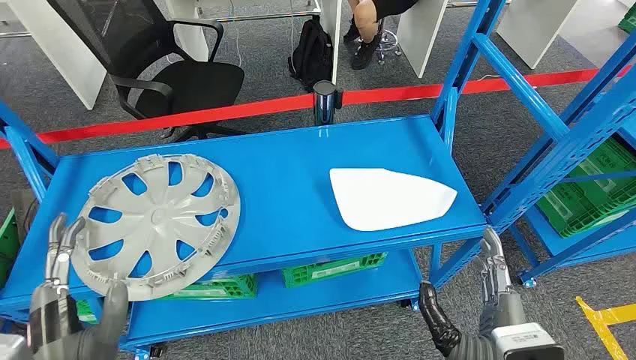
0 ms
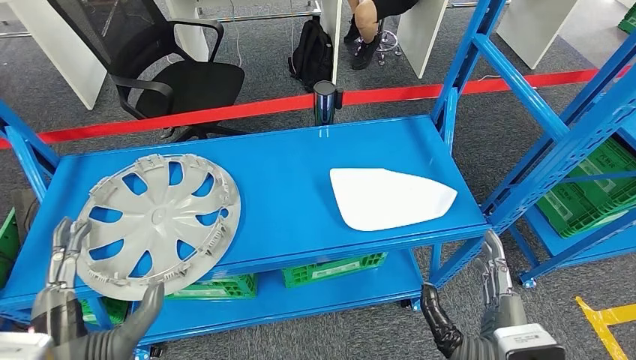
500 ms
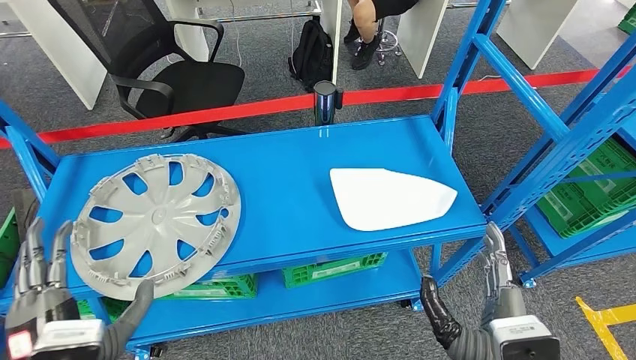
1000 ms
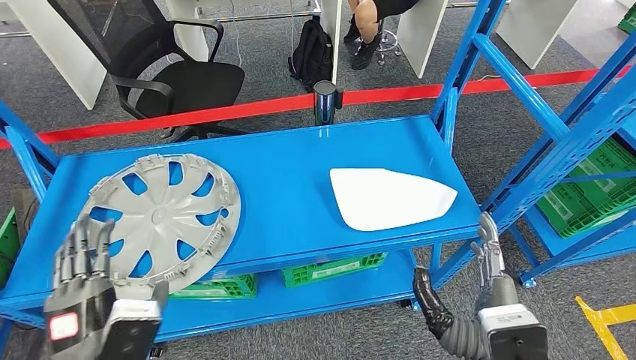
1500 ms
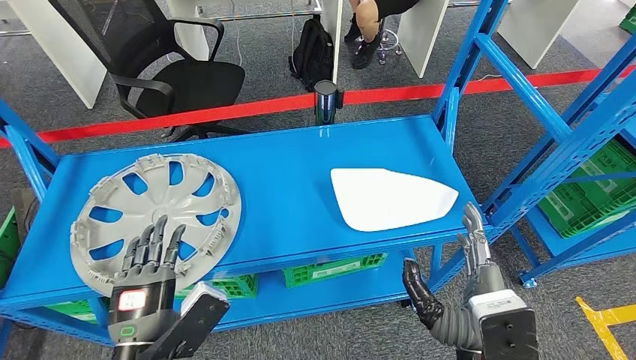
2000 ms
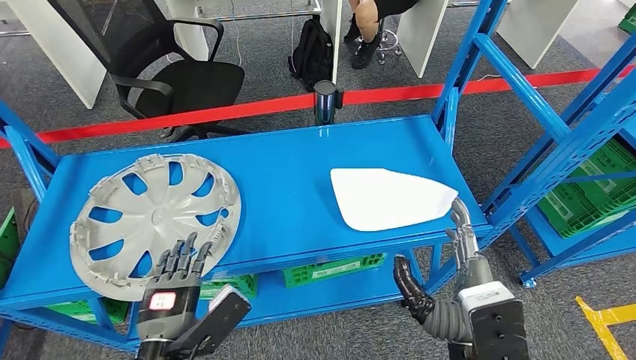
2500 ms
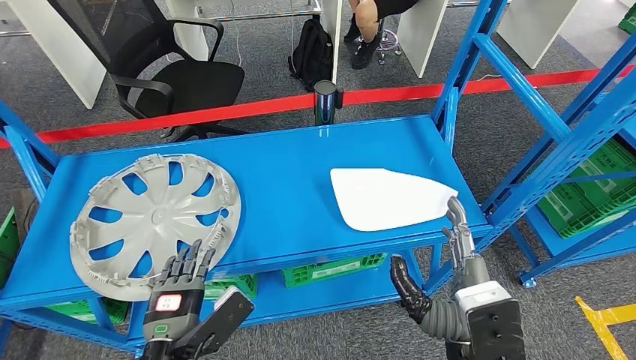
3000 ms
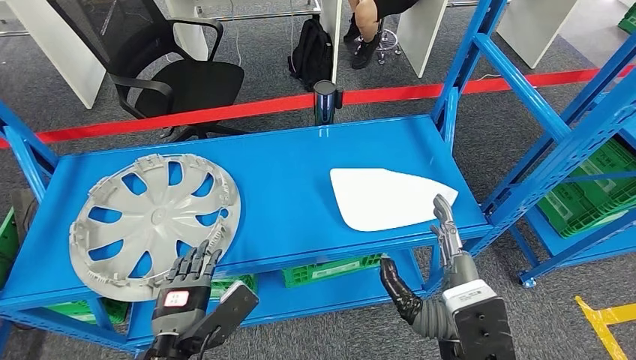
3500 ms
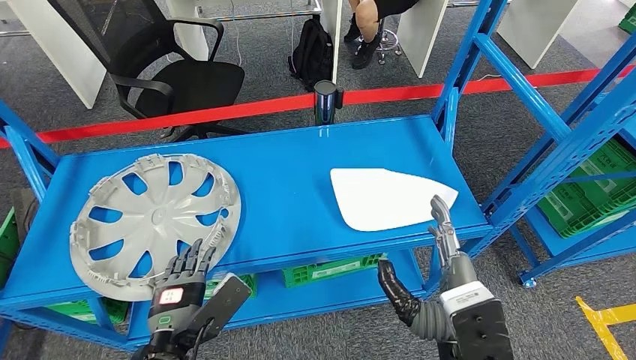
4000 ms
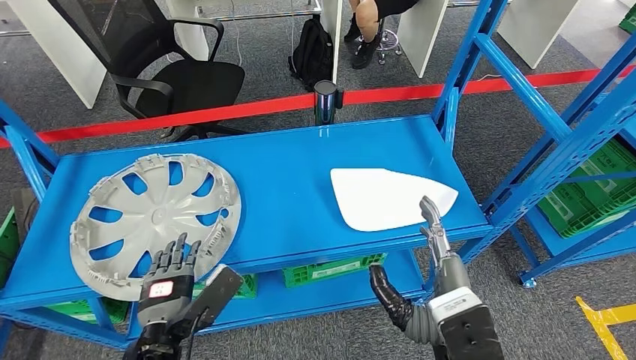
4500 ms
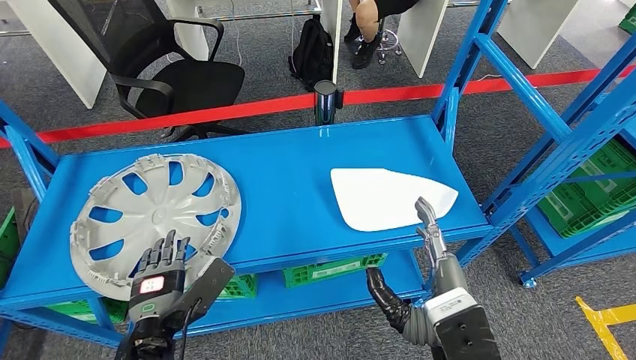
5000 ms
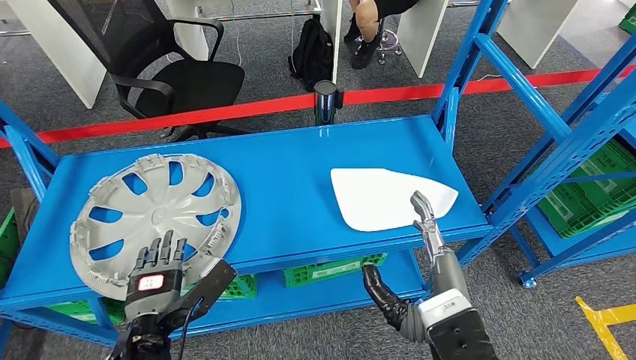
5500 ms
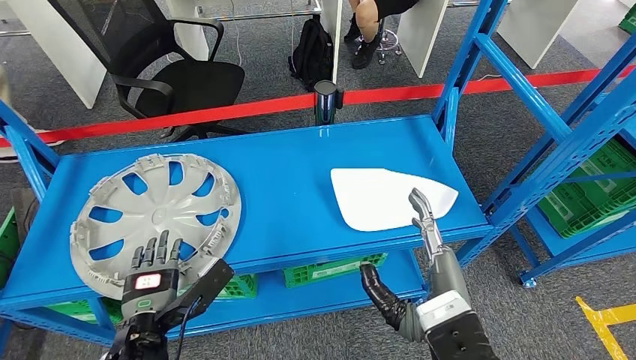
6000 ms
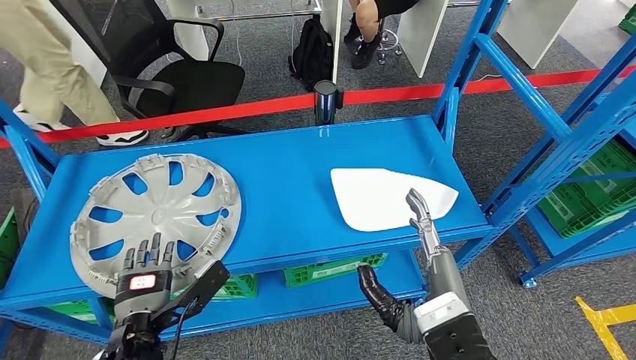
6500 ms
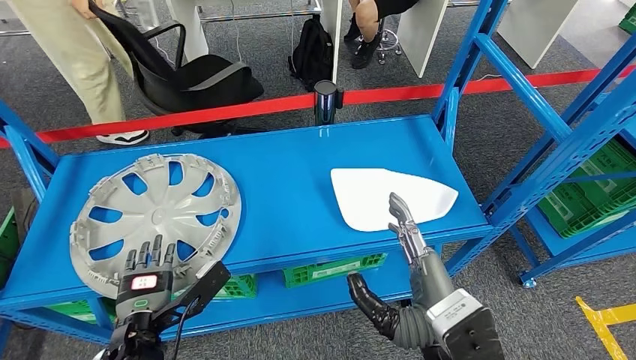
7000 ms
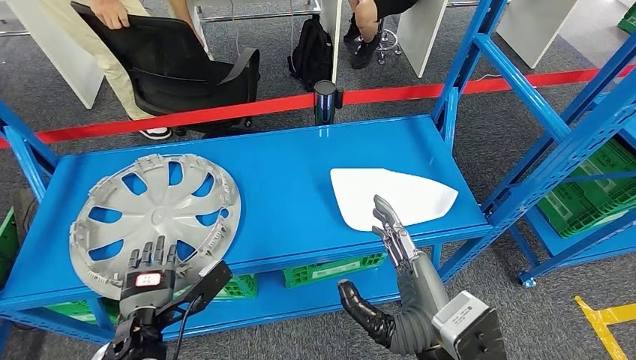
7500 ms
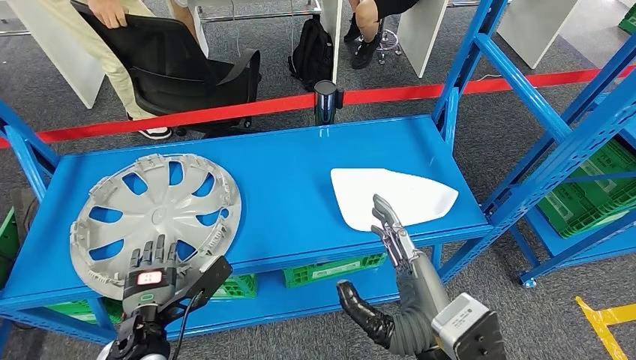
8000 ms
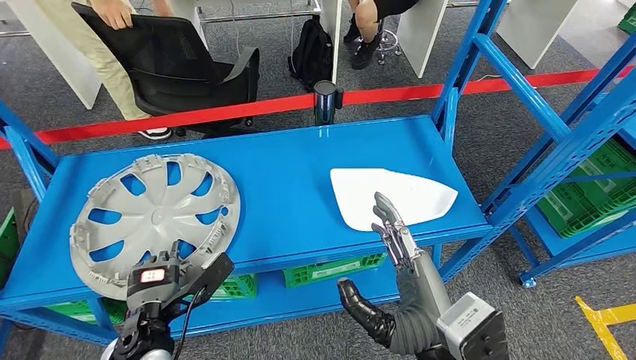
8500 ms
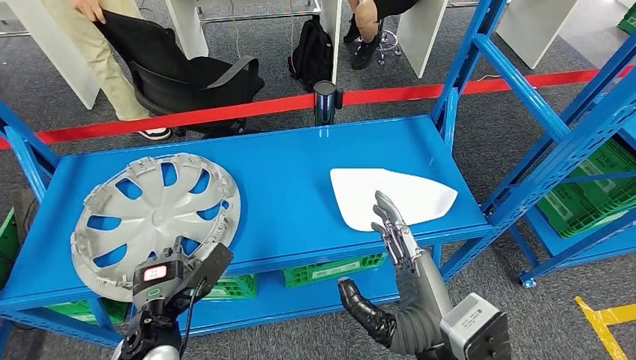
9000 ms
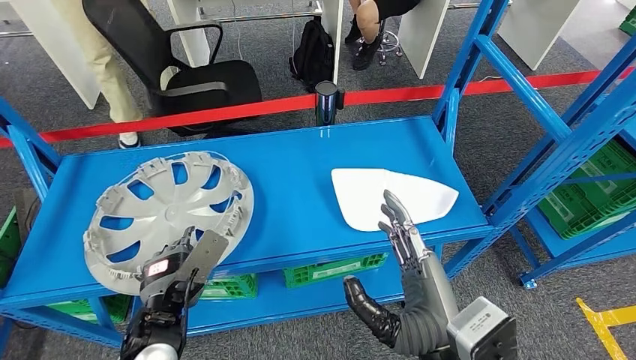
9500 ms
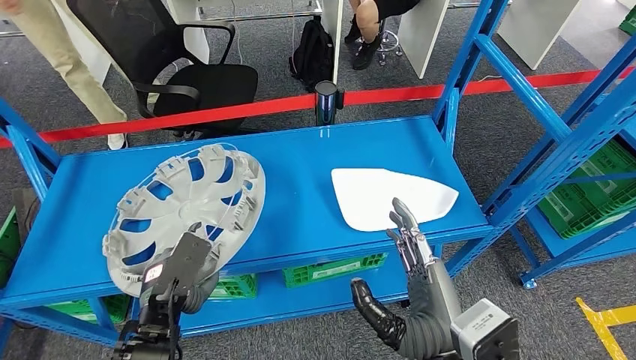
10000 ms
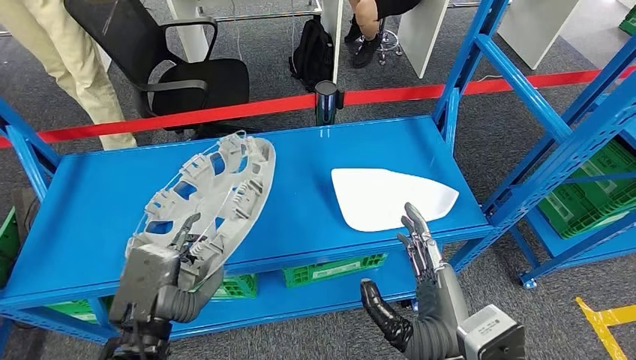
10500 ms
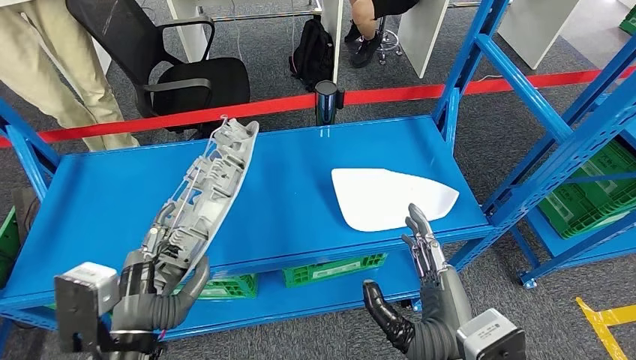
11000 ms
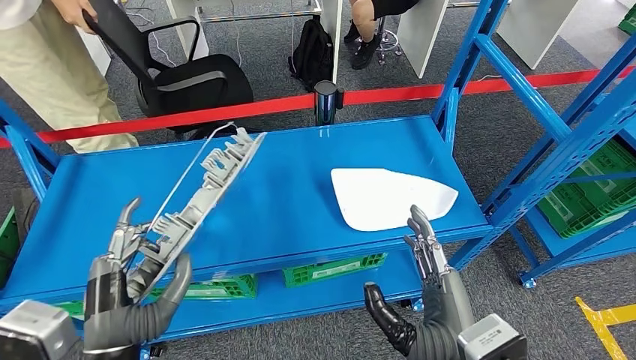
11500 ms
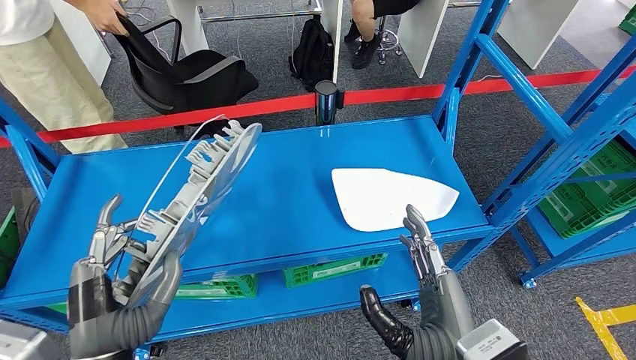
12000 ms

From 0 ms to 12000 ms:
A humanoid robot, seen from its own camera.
Step, from 0 ms to 11000 ms: Pick up the small component from the shelf.
From 2000 ms to 4000 ms: The left hand moves some 5 cm.
From 4000 ms to 6000 ms: The hands move only a little.

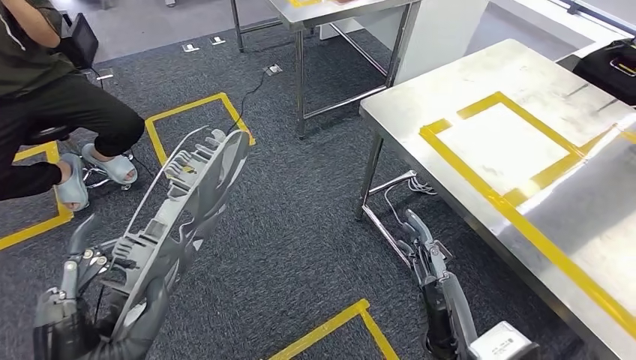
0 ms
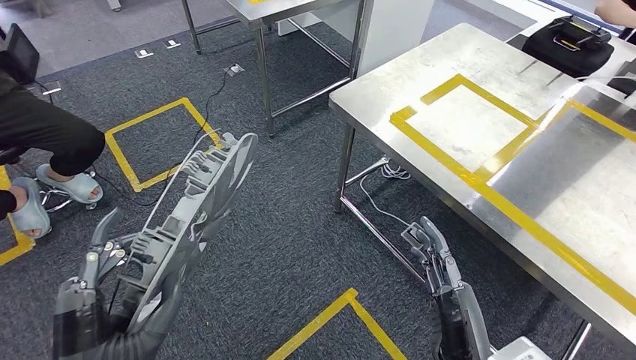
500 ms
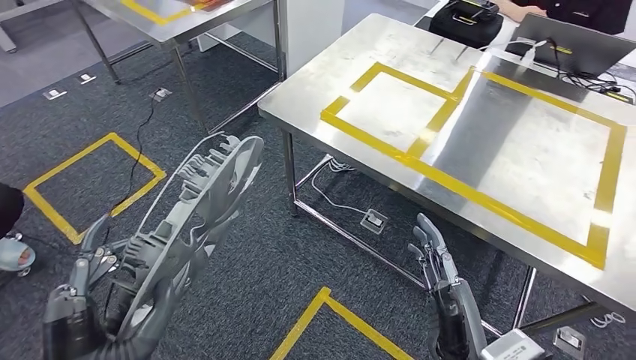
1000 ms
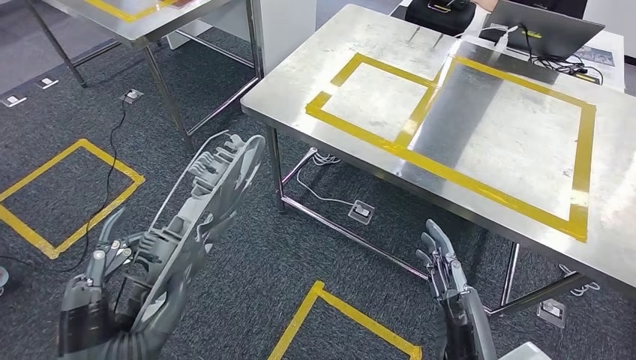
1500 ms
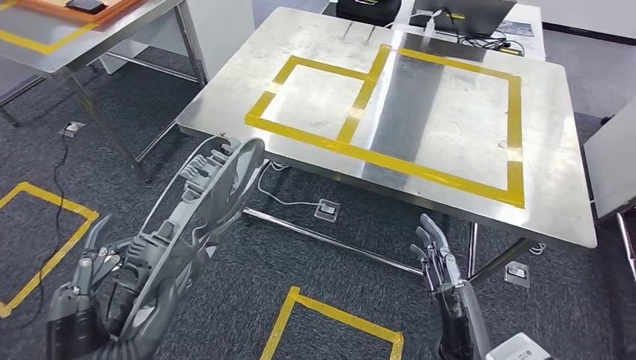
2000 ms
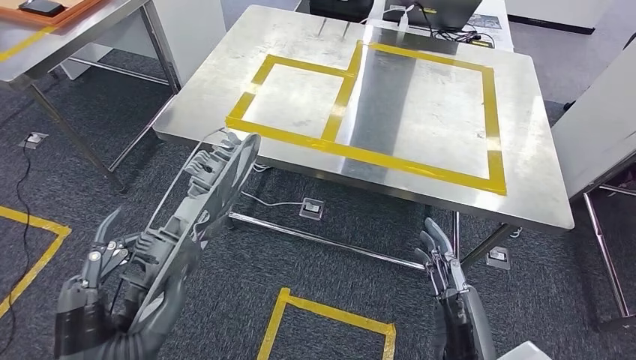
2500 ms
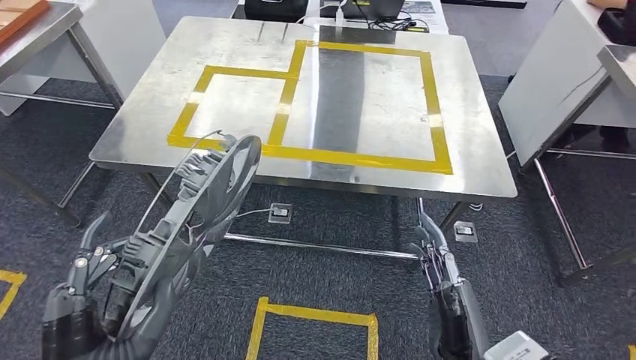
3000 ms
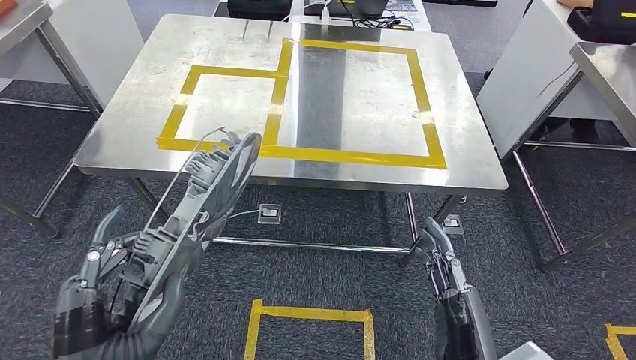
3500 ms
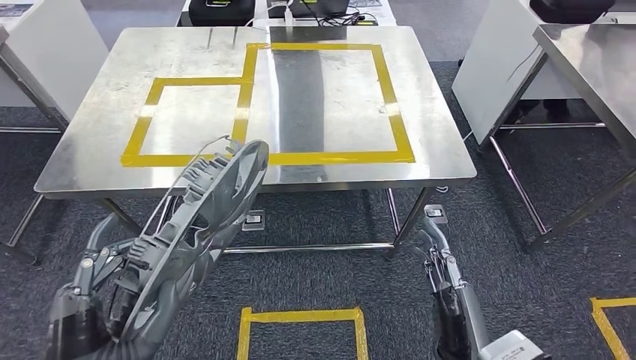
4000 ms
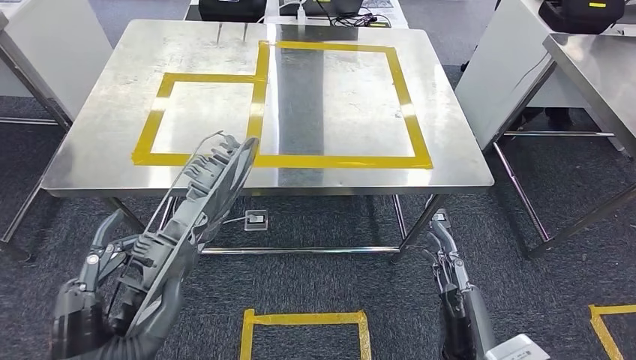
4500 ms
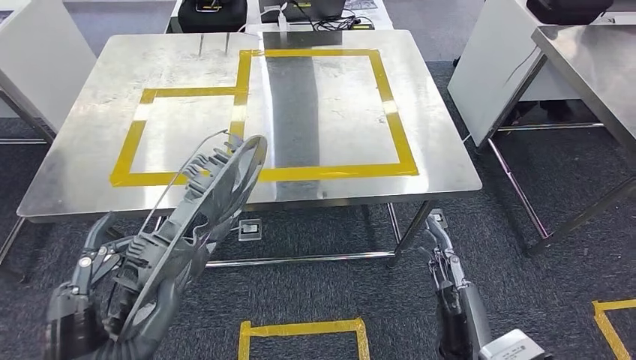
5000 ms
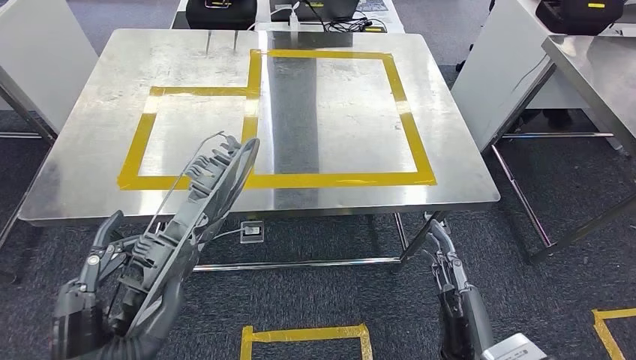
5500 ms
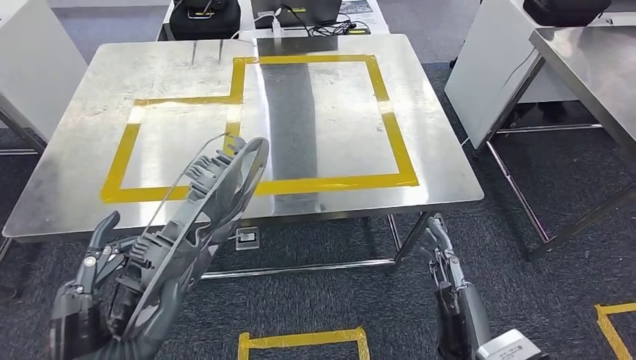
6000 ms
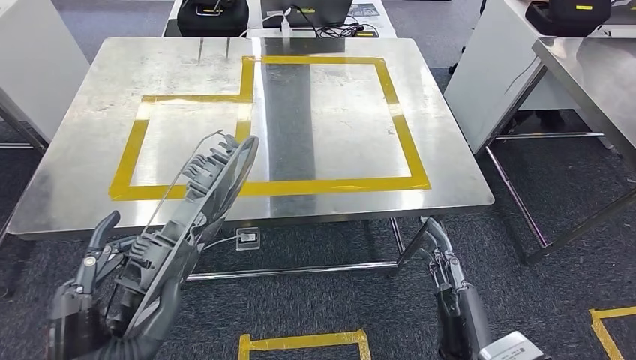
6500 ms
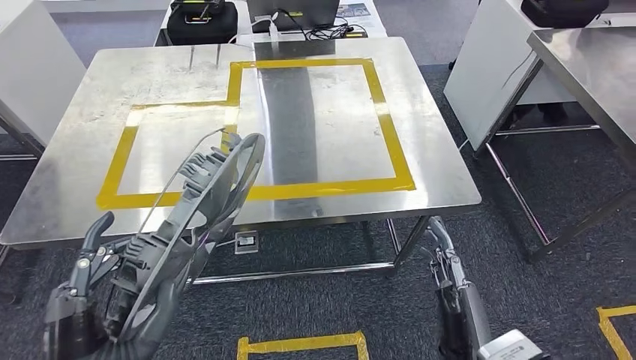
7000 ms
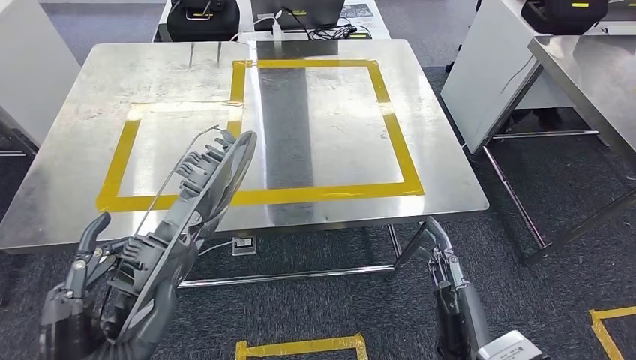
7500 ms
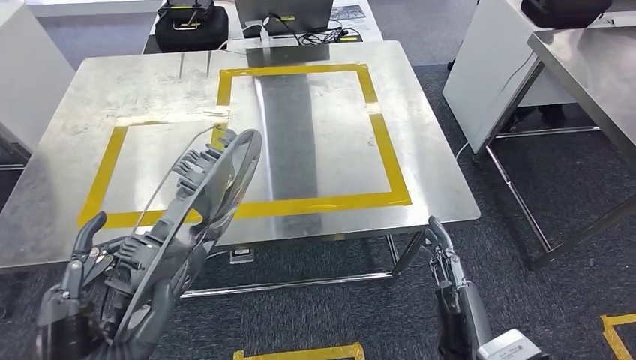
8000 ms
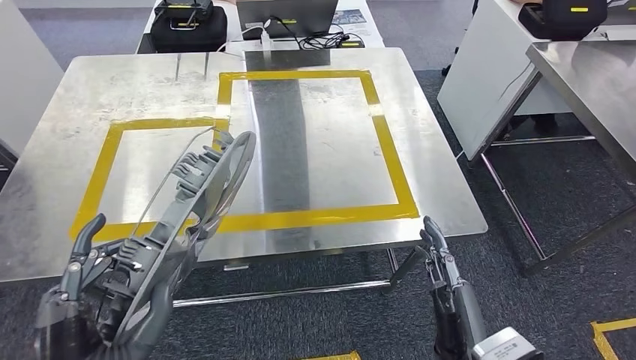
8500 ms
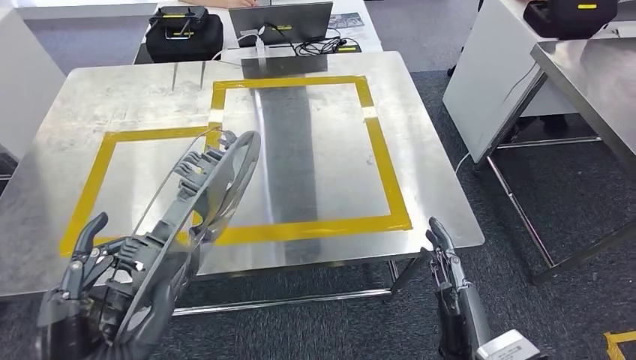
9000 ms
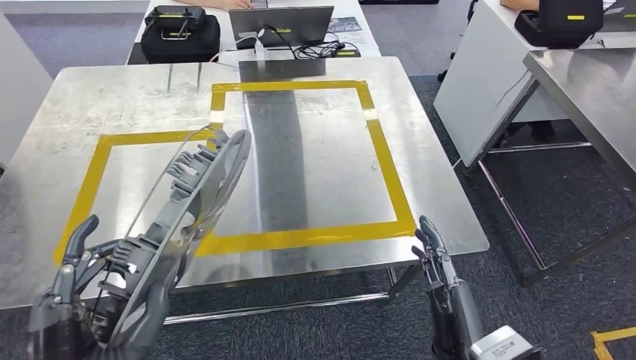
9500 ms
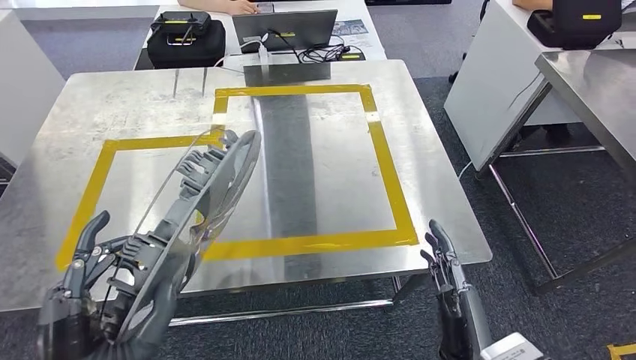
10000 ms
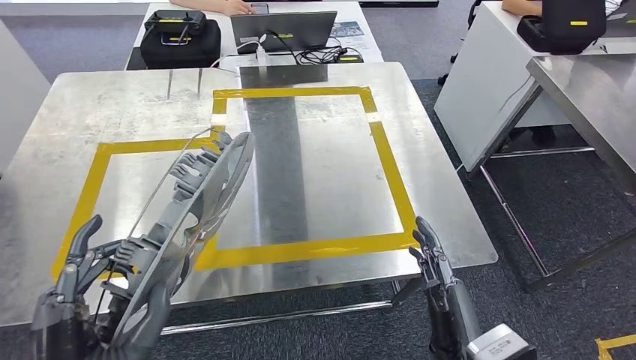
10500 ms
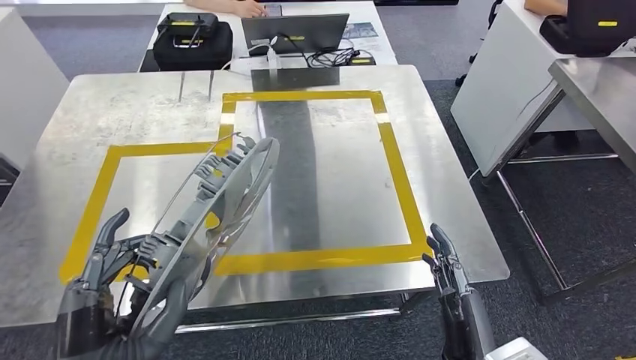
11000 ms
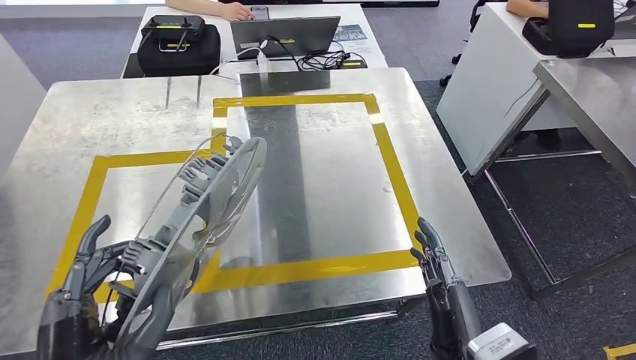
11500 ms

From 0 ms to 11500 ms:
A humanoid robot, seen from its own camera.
Step, from 0 ms to 11000 ms: Move the small component to the workbench.
